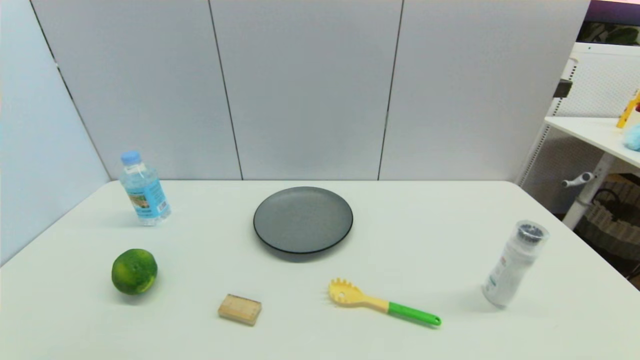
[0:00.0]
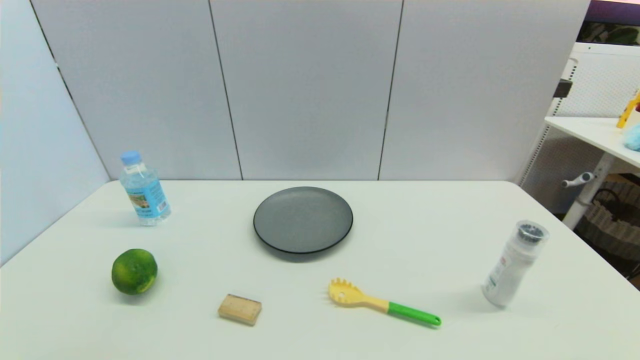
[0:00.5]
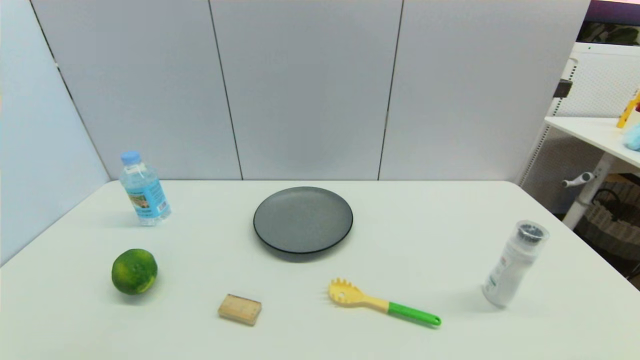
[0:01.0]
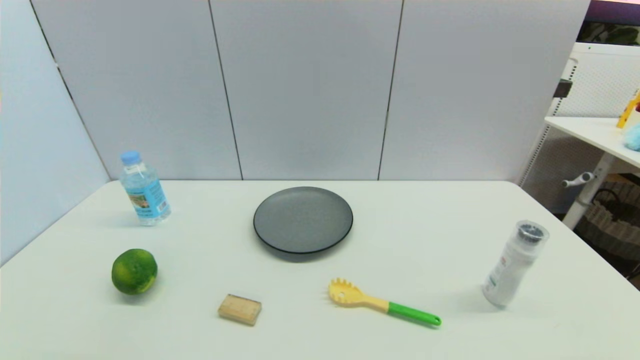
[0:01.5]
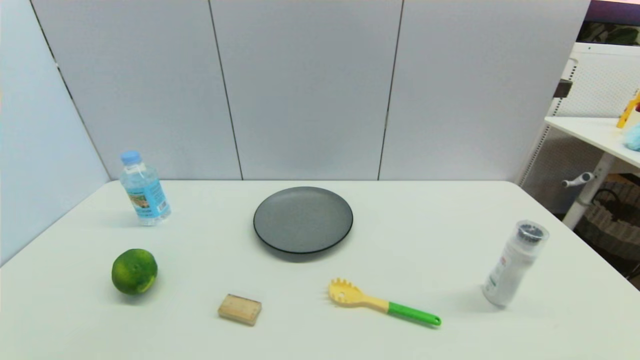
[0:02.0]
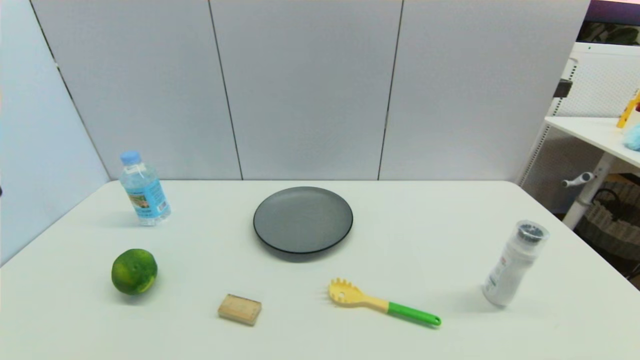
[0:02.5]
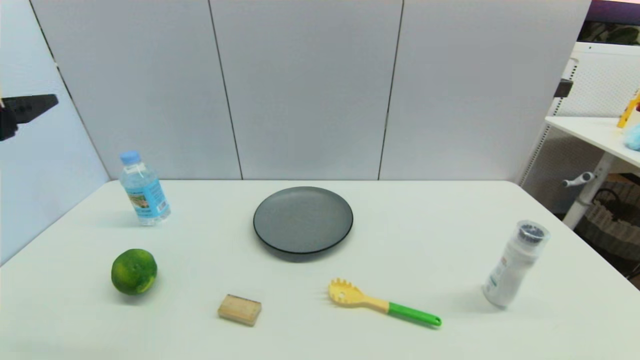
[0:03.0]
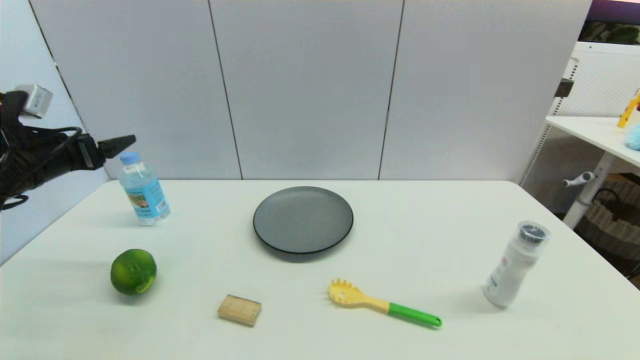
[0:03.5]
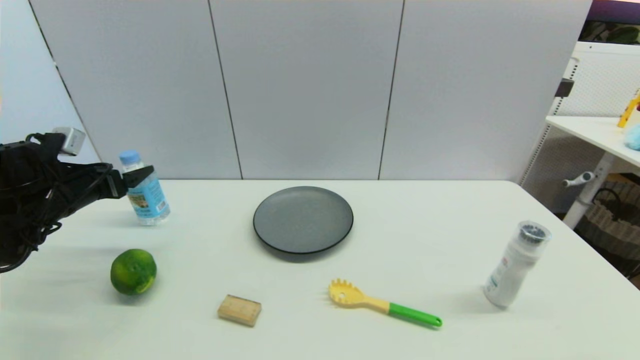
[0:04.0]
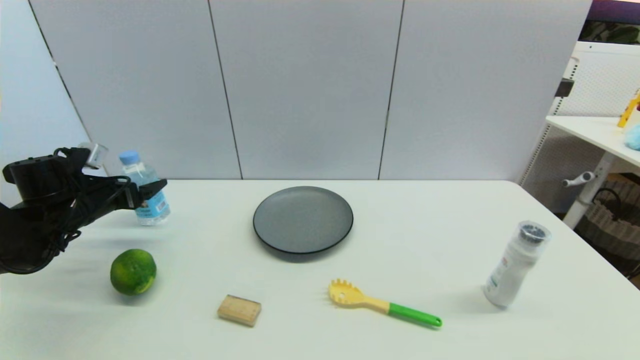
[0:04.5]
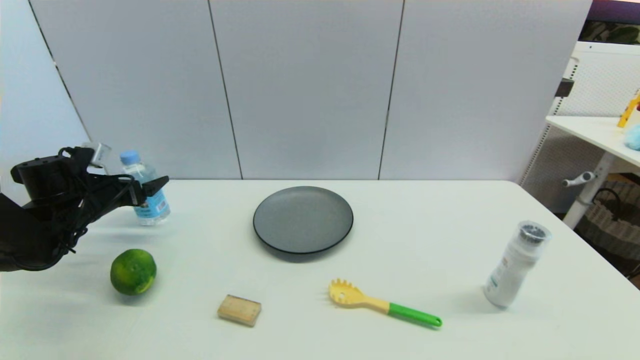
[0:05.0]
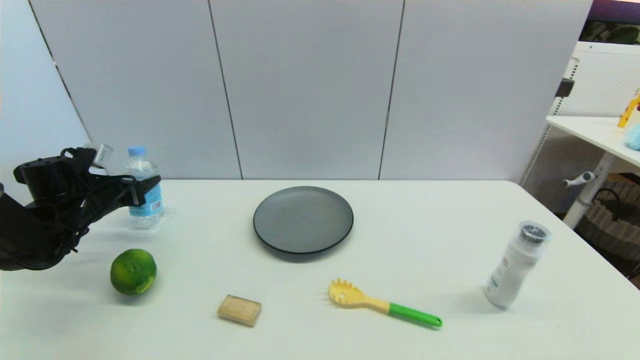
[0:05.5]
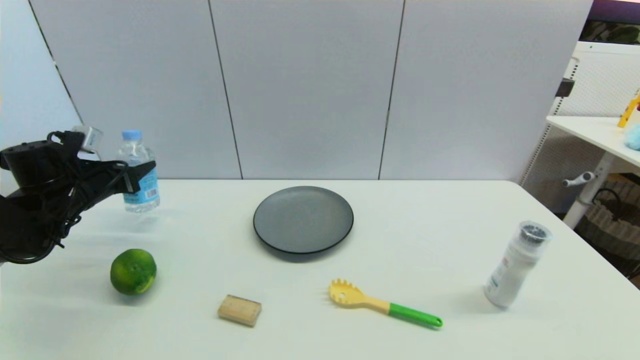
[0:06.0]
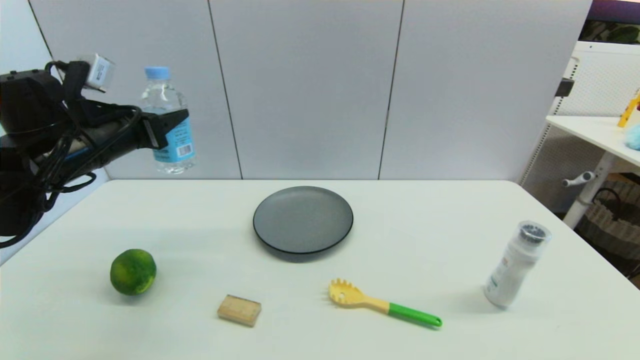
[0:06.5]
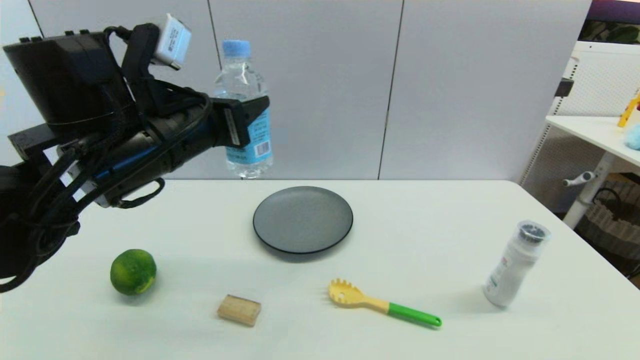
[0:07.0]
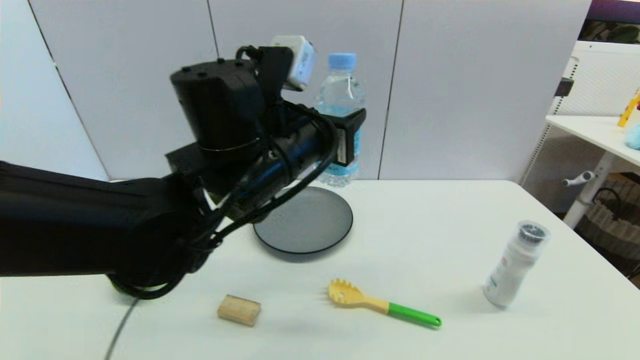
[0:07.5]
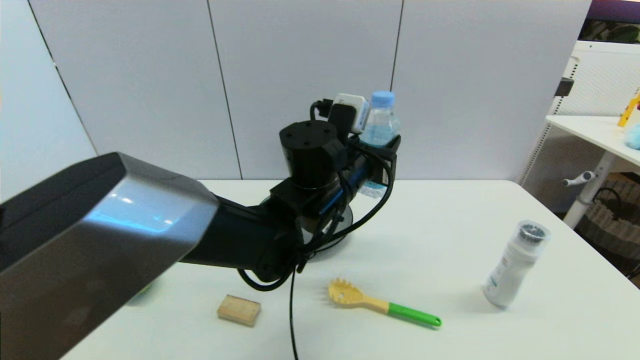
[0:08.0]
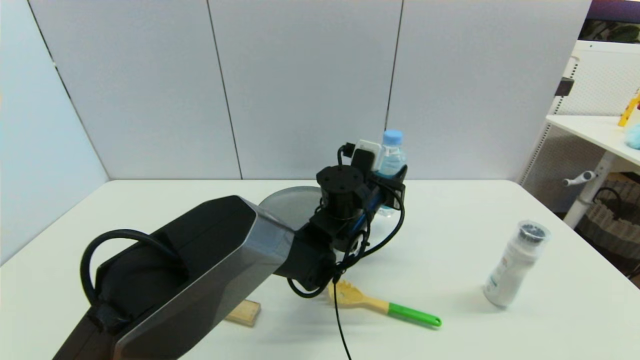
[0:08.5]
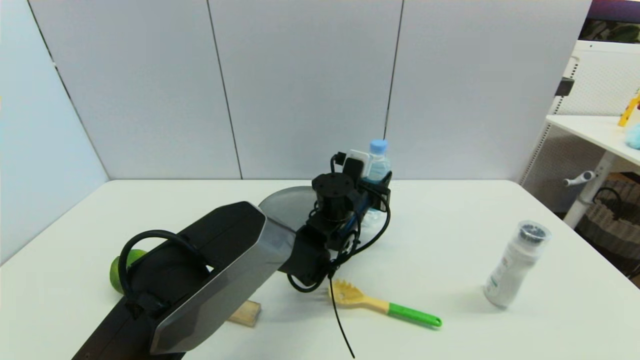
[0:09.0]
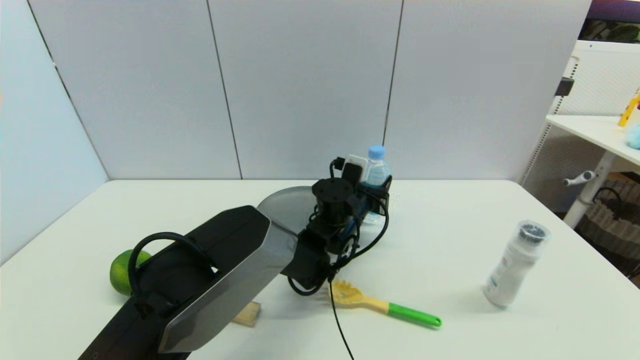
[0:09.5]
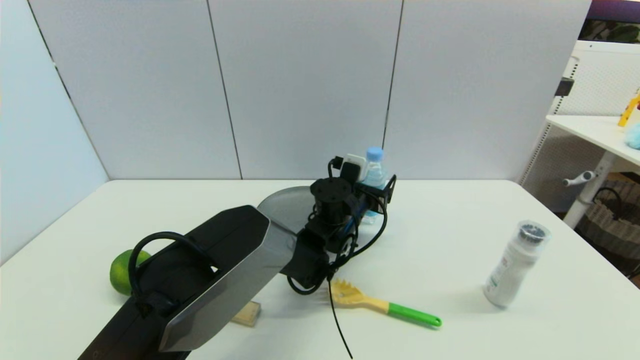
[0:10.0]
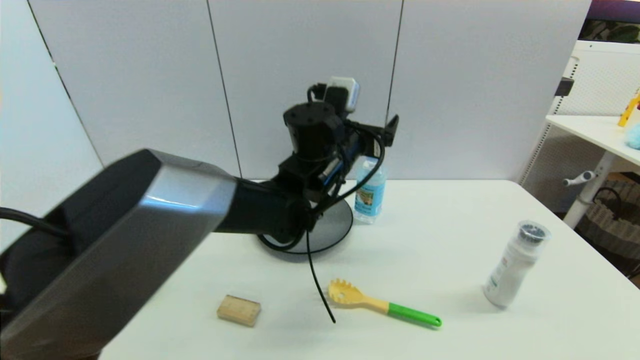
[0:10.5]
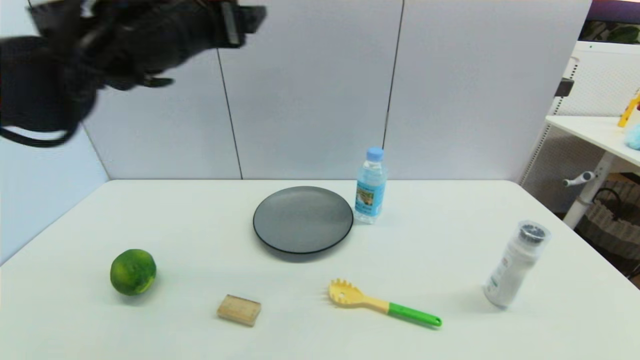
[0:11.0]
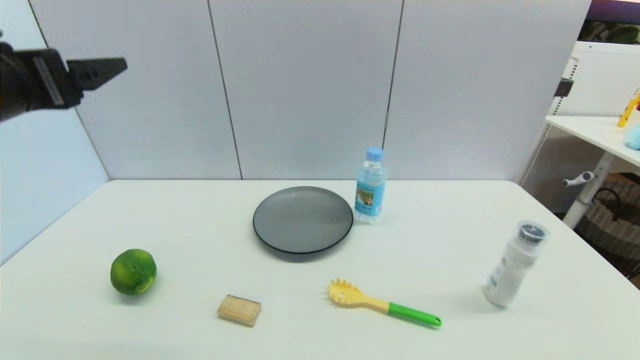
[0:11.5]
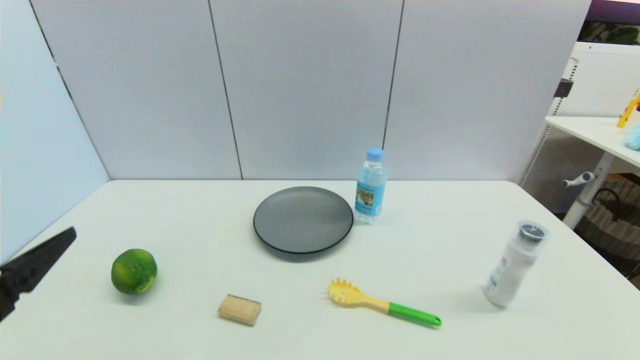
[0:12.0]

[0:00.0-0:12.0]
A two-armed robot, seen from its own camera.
Step, 2.0 to 5.5 s: Grasp the soda water with left gripper.
Step, 6.0 to 10.0 s: Place the soda water on the table with left gripper.
2.0 to 4.0 s: The left gripper goes about 35 cm forward.
4.0 to 6.0 s: The left gripper closes.
6.0 to 8.0 s: The left gripper shifts approximately 40 cm to the right.
8.0 to 10.0 s: The left gripper heads downward and forward, covering roughly 15 cm, and opens its fingers.
10.0 to 12.0 s: The left gripper goes roughly 50 cm to the left and backward.

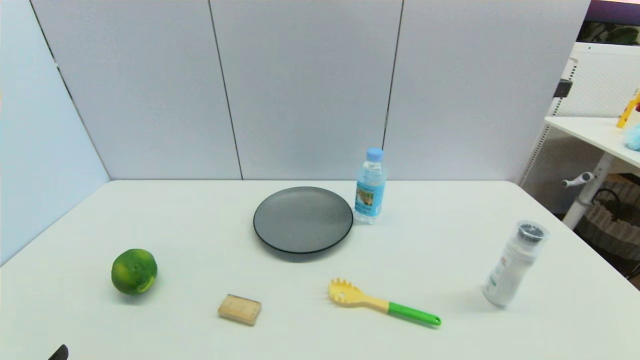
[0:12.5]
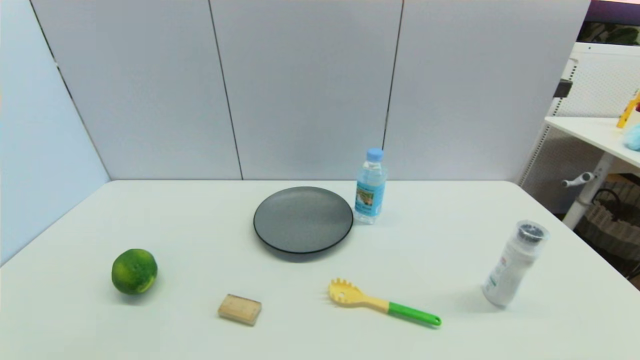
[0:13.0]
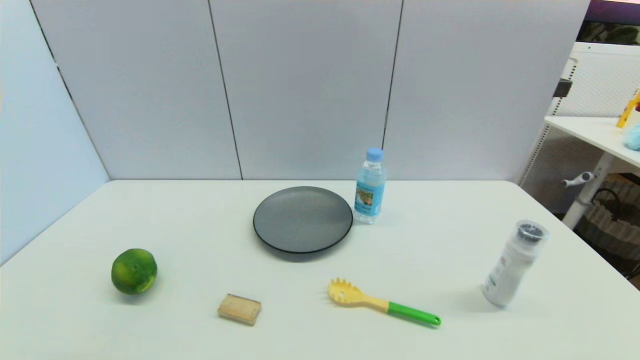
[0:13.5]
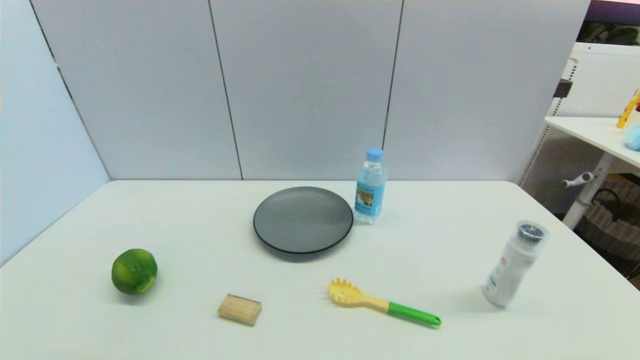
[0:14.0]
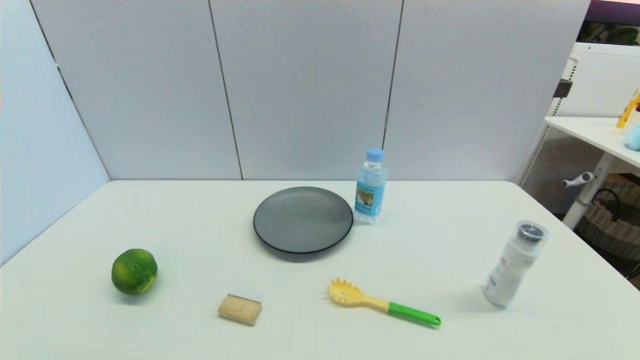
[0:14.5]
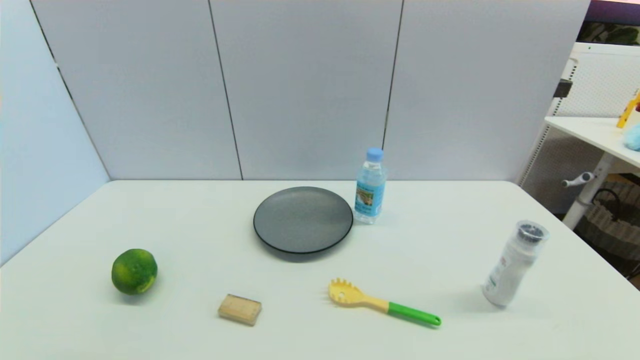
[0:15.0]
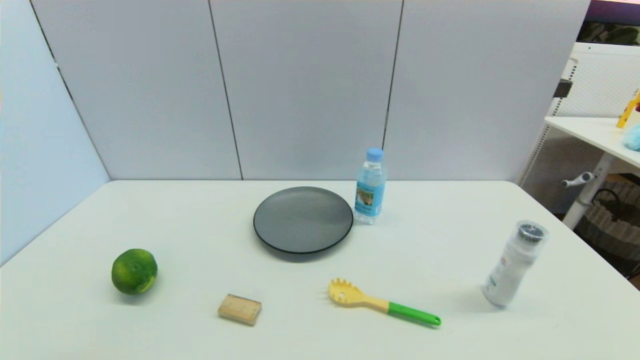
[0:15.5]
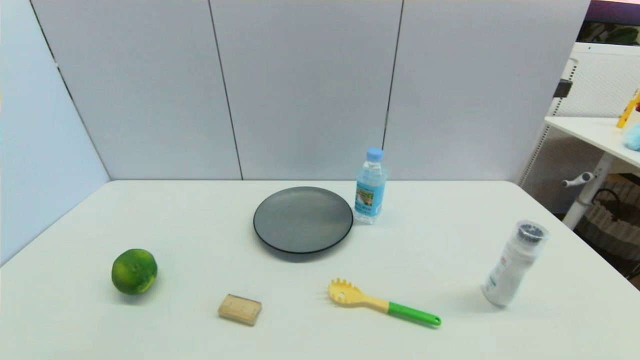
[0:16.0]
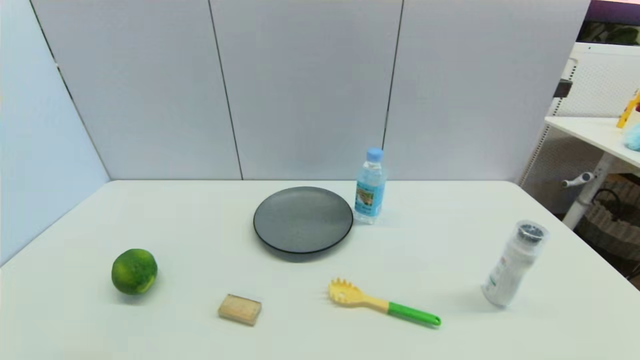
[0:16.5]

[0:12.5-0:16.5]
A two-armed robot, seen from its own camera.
14.5 to 16.5 s: Both grippers stay put.

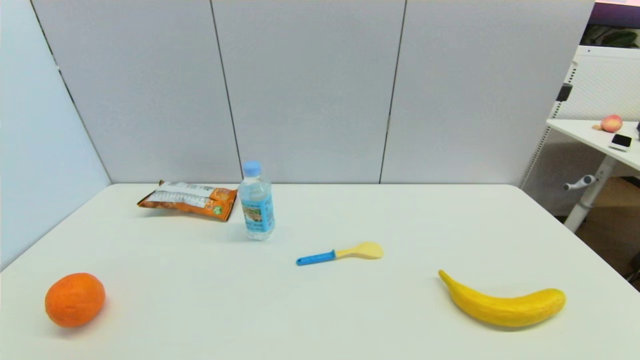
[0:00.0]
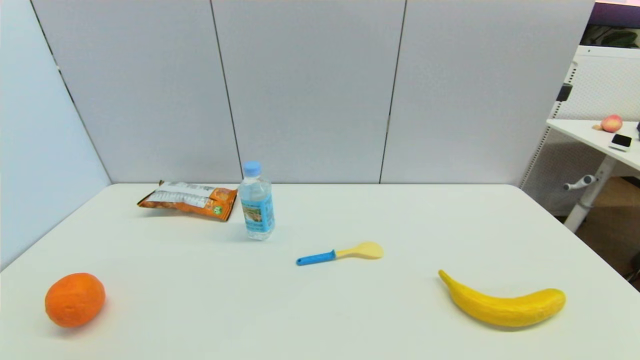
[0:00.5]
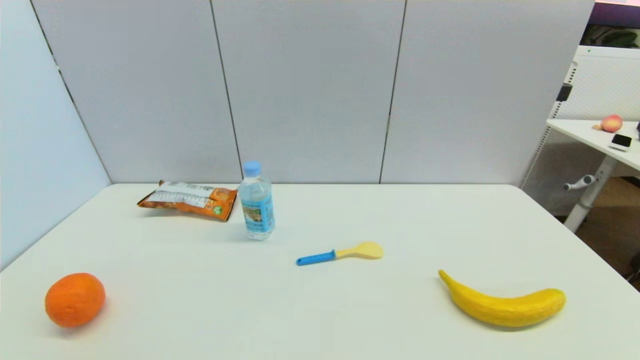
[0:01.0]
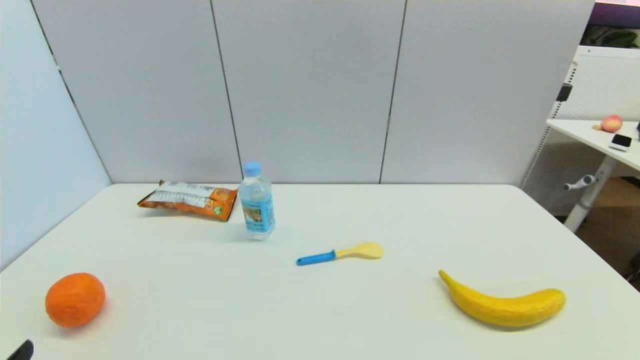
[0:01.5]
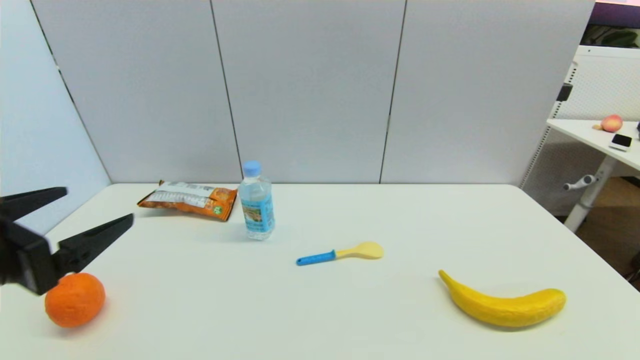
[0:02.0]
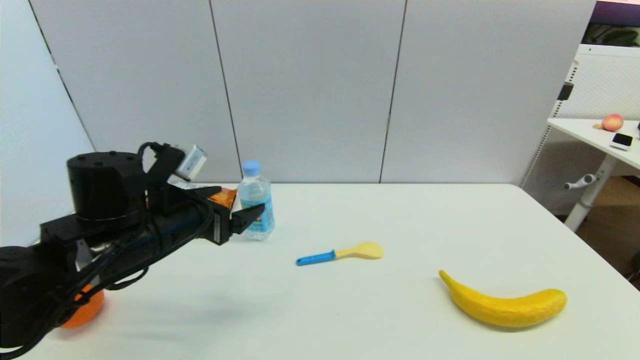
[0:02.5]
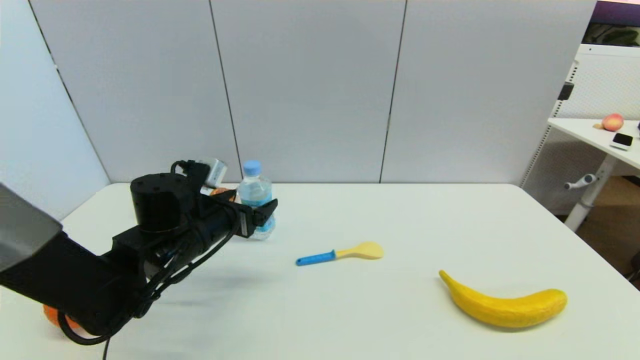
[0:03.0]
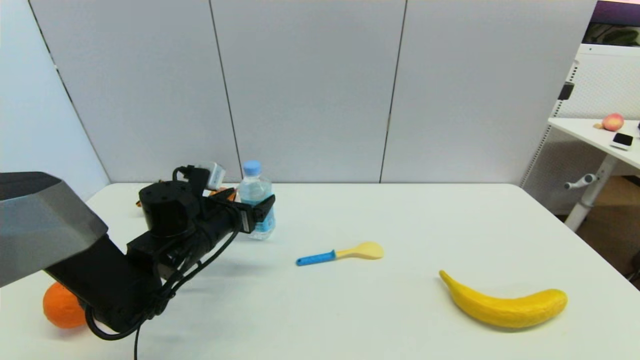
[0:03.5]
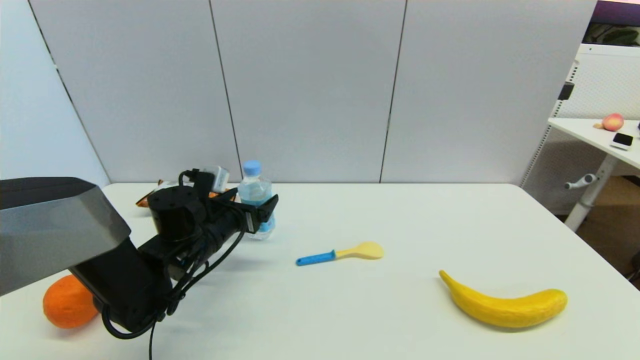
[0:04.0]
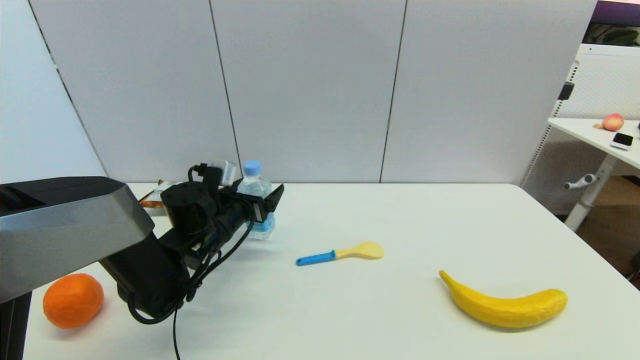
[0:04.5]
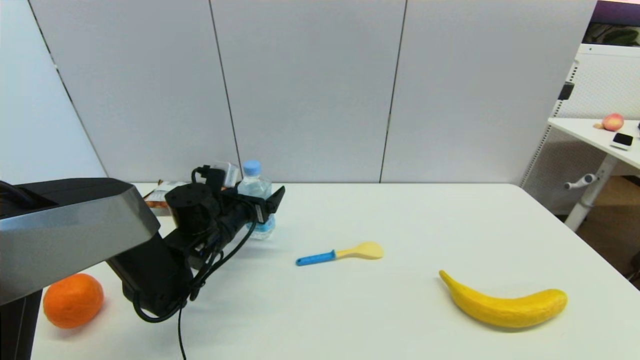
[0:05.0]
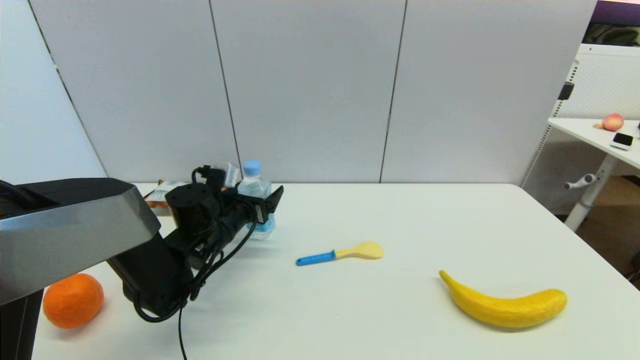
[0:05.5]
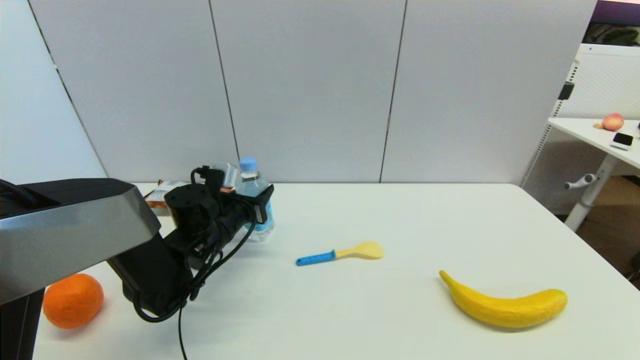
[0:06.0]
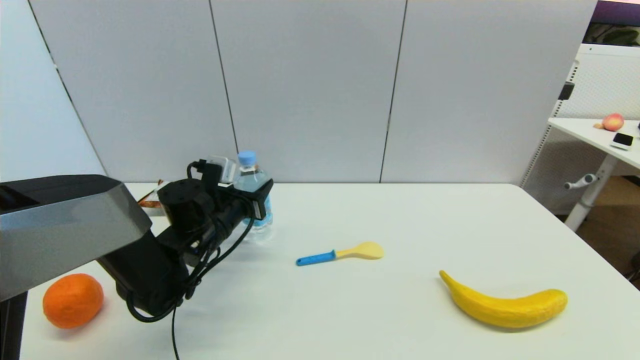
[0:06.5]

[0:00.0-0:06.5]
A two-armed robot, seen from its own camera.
Step, 1.5 to 6.0 s: Grasp the soda water with left gripper.
0.0 to 2.0 s: The left gripper shifts about 20 cm upward and forward.
2.0 to 4.5 s: The left gripper heads forward, downward and to the right, covering some 30 cm.
4.5 to 6.5 s: The left gripper closes.
